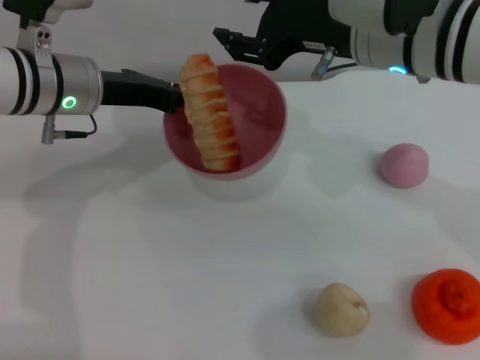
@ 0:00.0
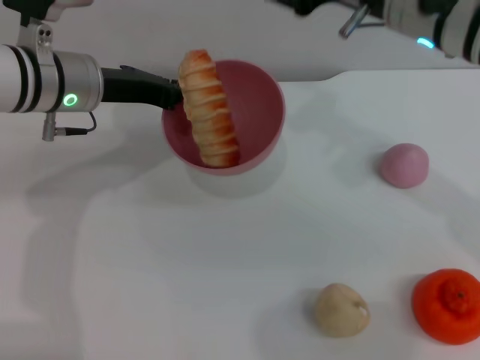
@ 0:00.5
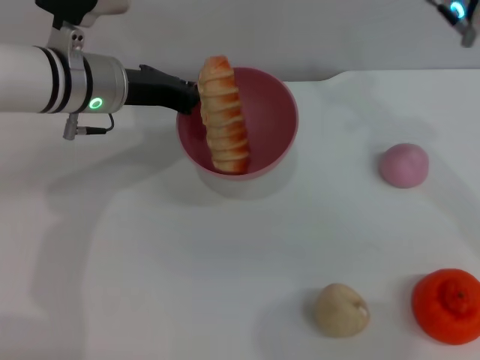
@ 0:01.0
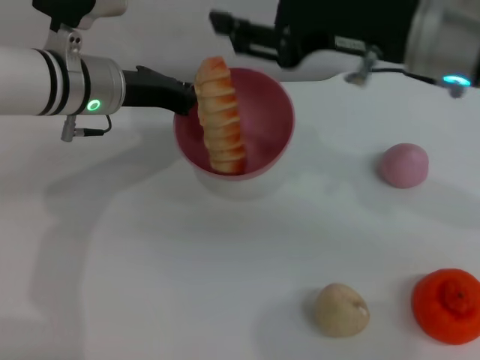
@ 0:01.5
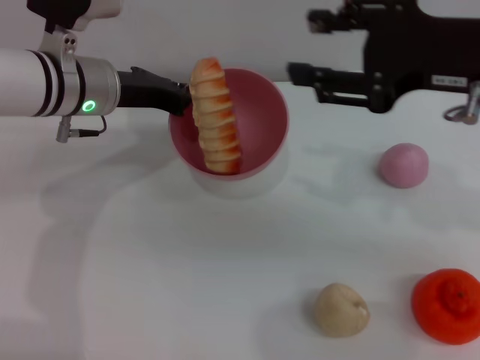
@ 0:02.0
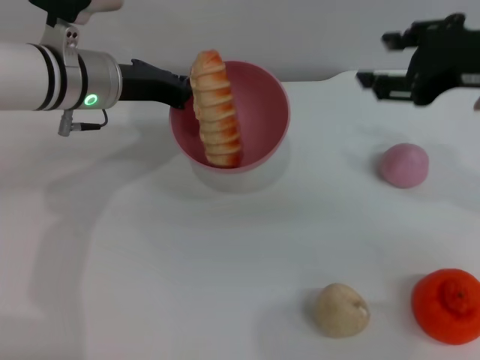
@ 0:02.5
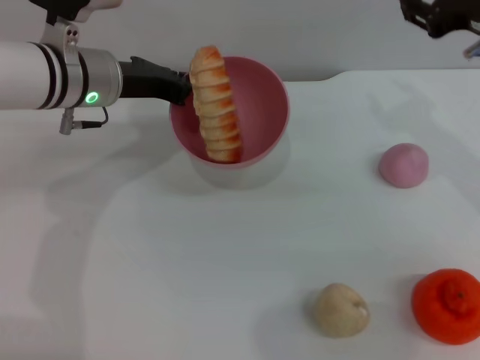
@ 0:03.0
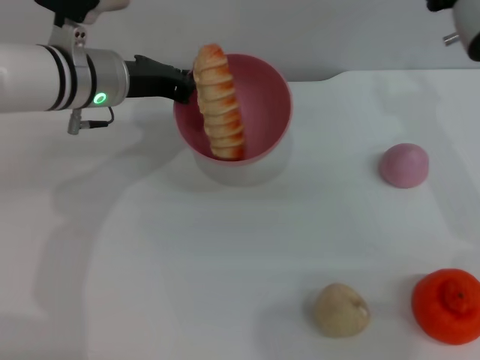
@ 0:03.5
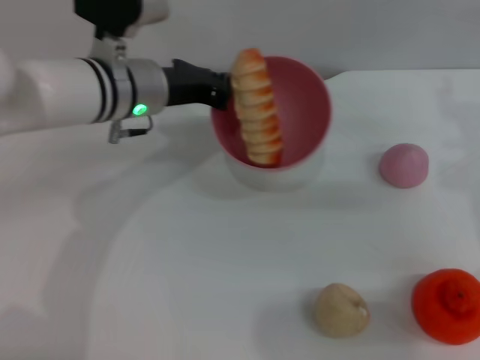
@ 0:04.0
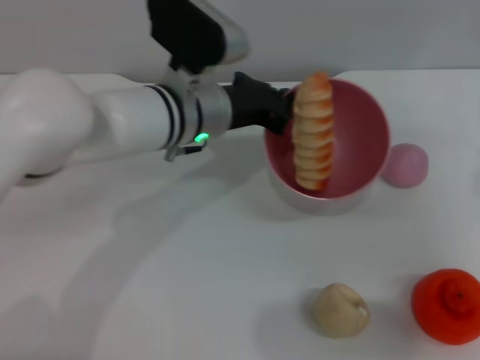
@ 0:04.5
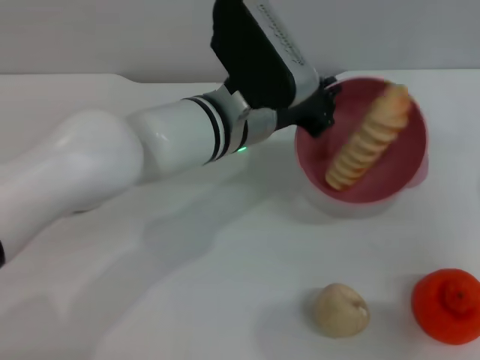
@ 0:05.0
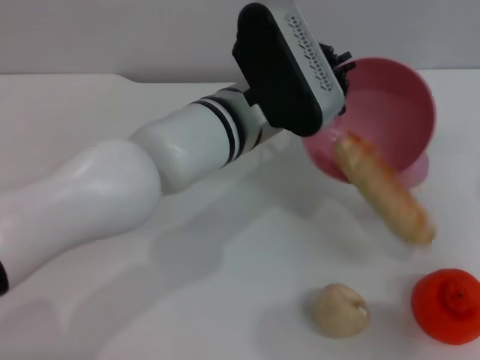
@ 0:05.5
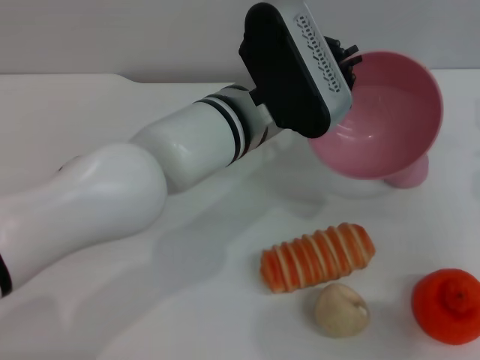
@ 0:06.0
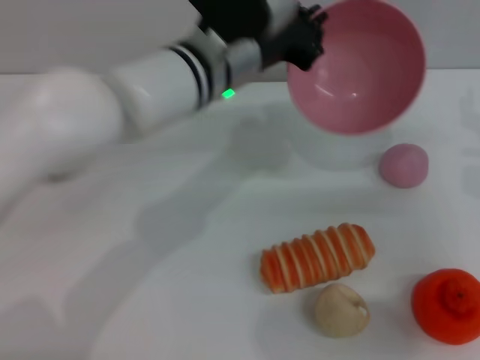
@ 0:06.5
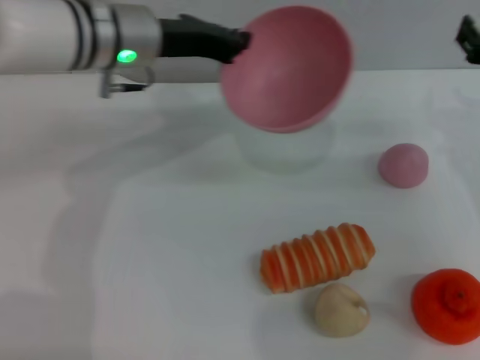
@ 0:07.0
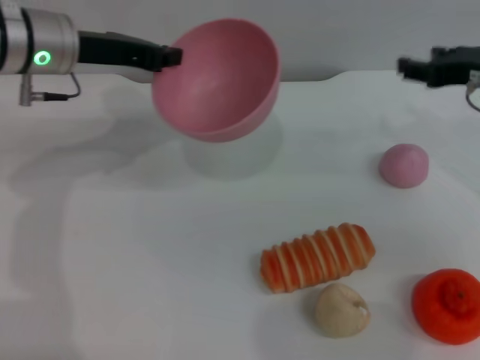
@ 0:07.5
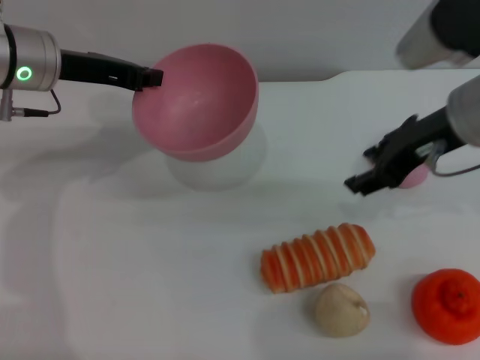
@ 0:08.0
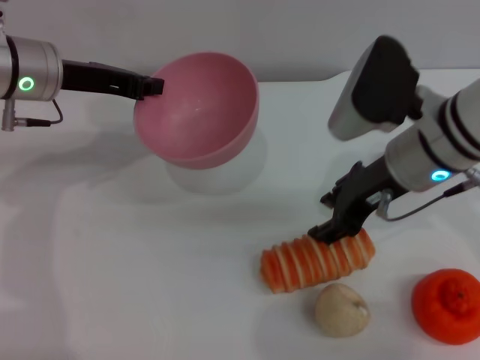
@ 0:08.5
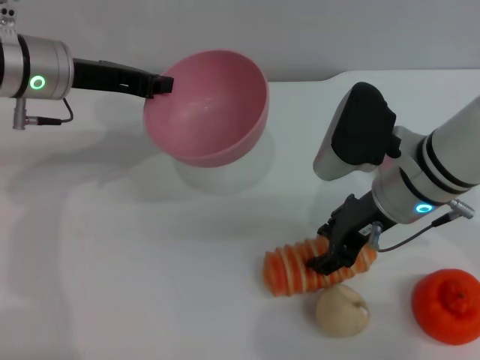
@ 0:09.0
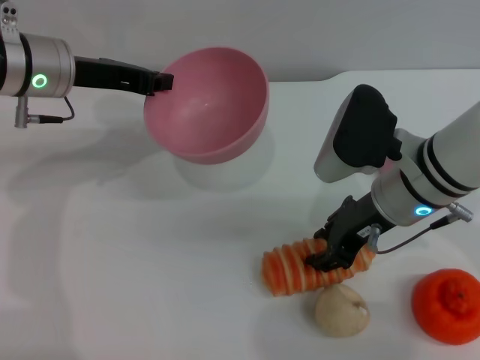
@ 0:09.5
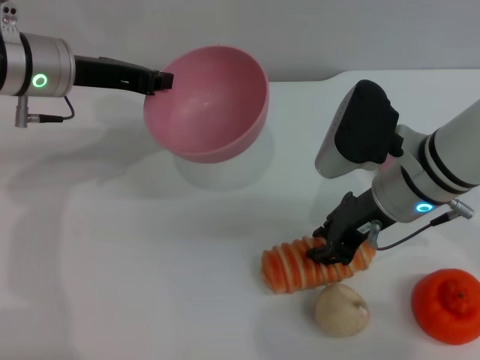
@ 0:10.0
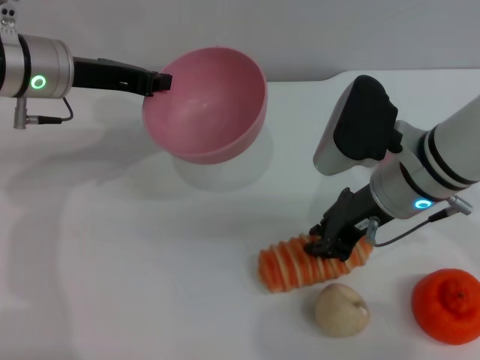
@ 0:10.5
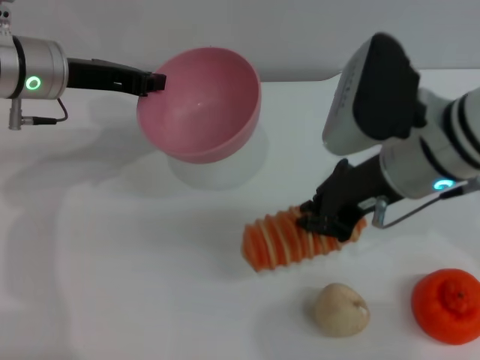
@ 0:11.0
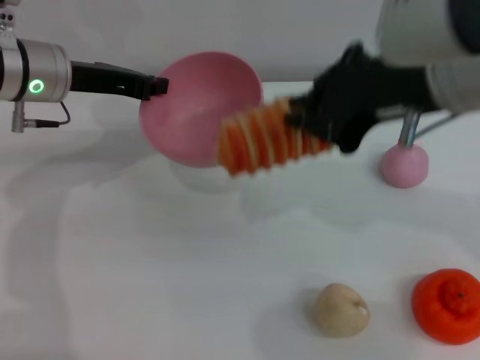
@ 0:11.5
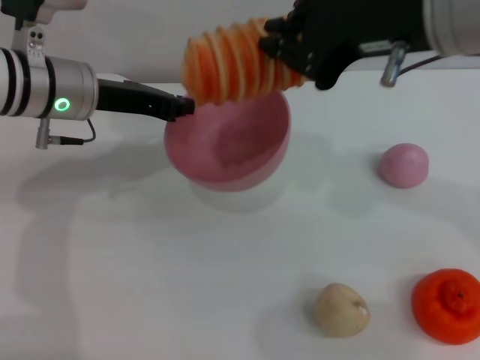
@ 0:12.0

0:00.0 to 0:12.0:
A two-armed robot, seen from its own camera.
Task of the whole recording: put the bread into the pink bowl and pour it out repeatedly.
Step, 0:00.5 to 0:06.0: Pour the bread out of the bowl.
Step, 0:06.5 to 0:11.0: Pick up the bread with the right gripper.
0:00.0 to 0:02.0: The right gripper heads to the right and backward, covering roughly 10 cm.
0:02.0 to 0:04.0: The right gripper shifts some 10 cm downward and to the right.
0:04.0 to 0:06.0: The left gripper moves to the right and backward, some 15 cm.
0:06.0 to 0:08.0: The right gripper is displaced to the left and upward by about 10 cm. Meanwhile the left gripper shifts about 20 cm to the left.
0:08.0 to 0:10.0: The right gripper heads downward, covering about 10 cm, and closes its fingers.
0:10.0 to 0:12.0: The right gripper travels upward by some 20 cm, and closes up.

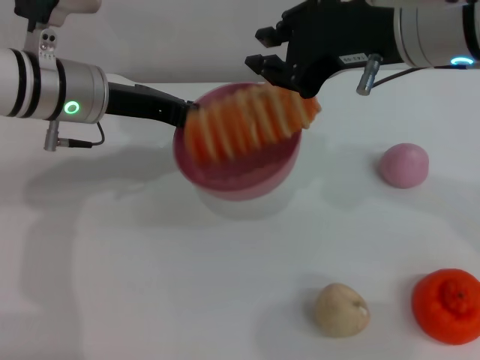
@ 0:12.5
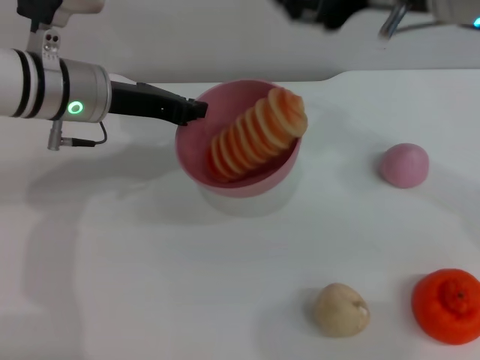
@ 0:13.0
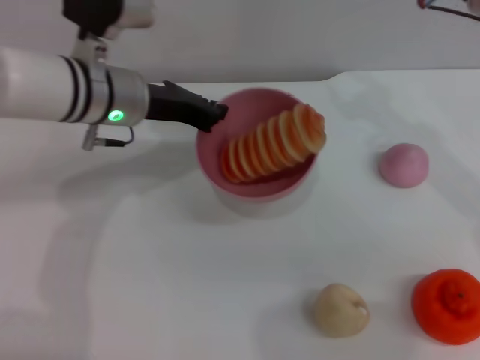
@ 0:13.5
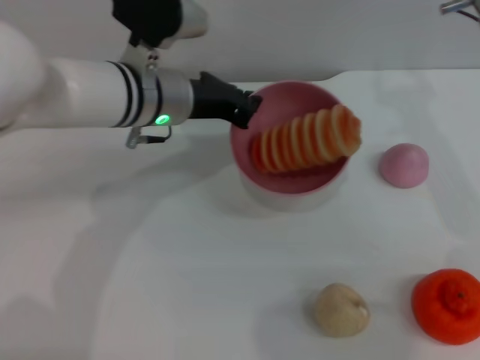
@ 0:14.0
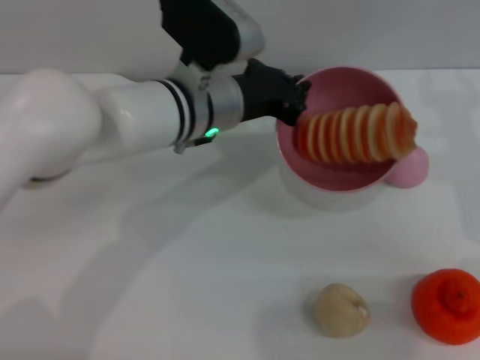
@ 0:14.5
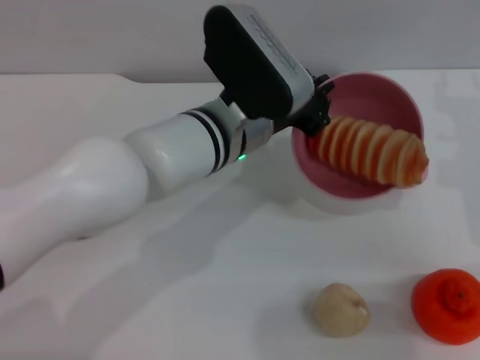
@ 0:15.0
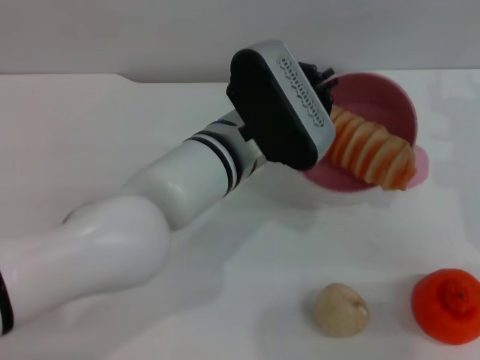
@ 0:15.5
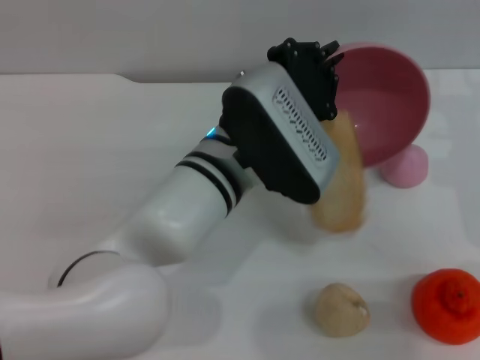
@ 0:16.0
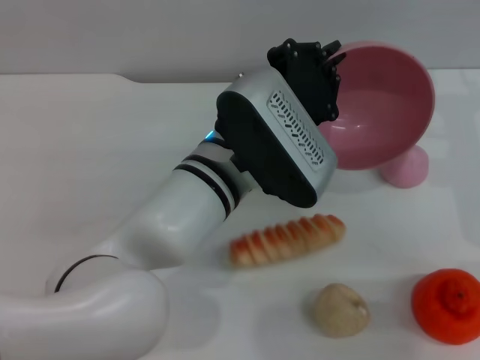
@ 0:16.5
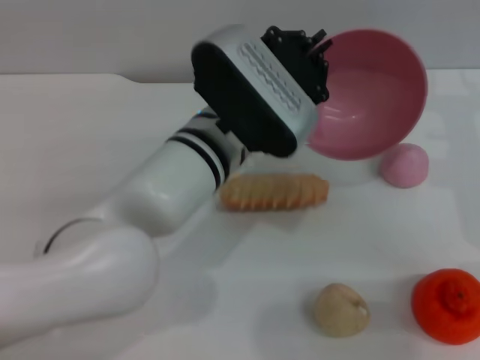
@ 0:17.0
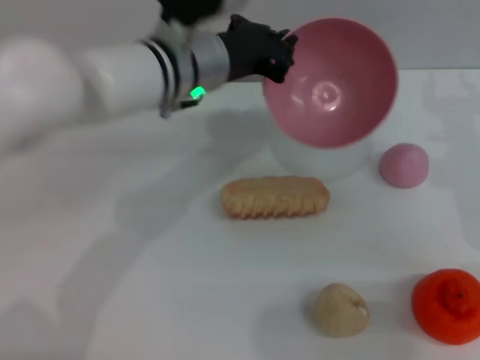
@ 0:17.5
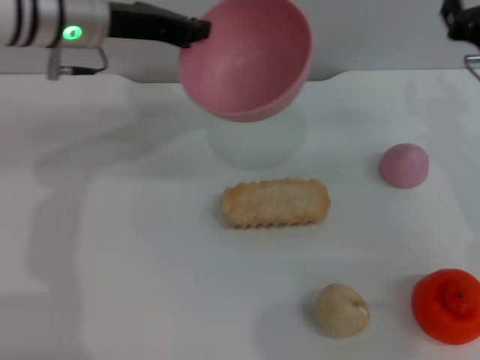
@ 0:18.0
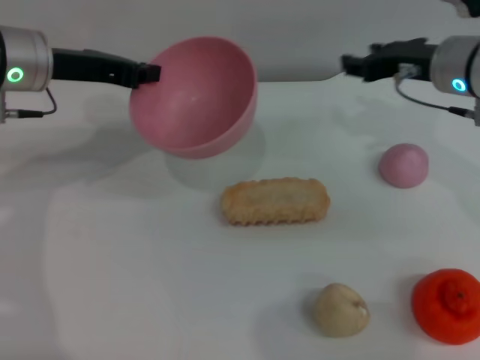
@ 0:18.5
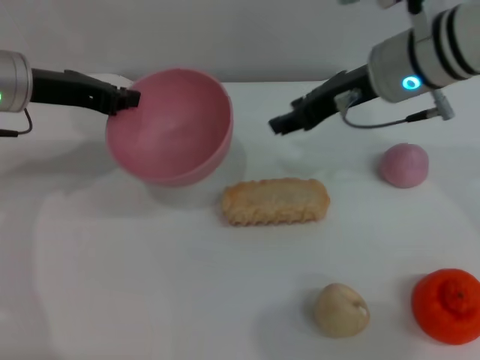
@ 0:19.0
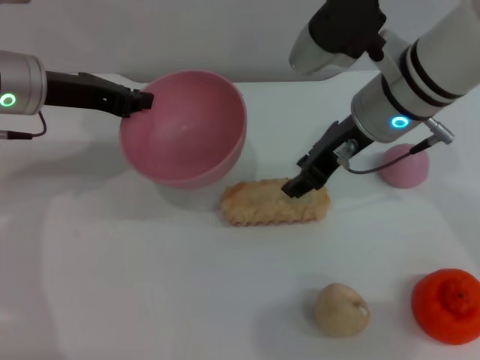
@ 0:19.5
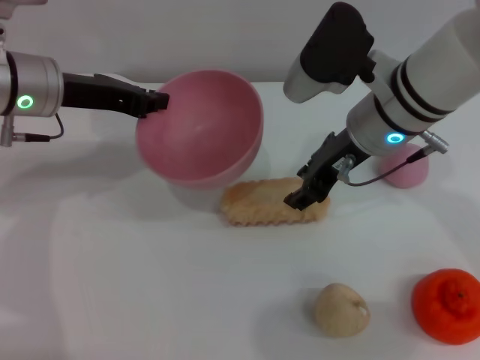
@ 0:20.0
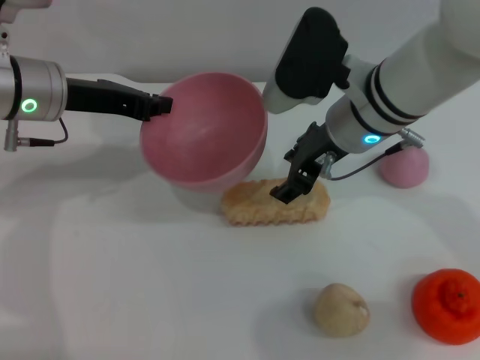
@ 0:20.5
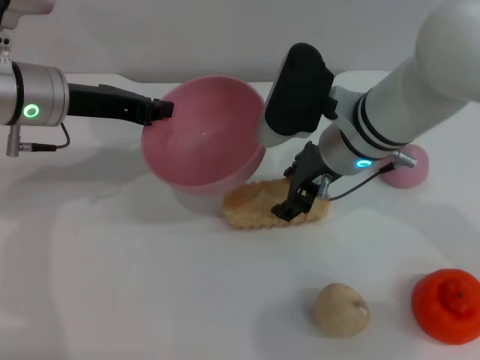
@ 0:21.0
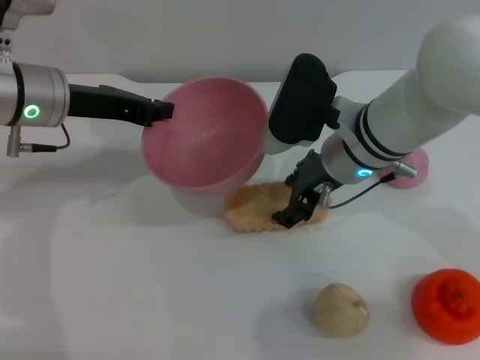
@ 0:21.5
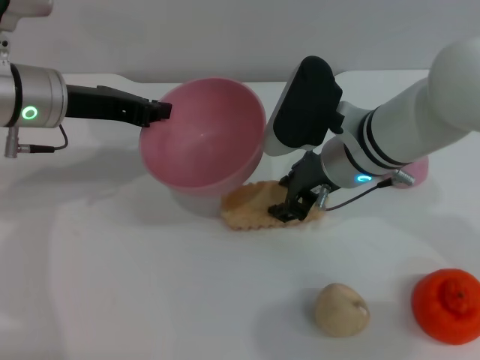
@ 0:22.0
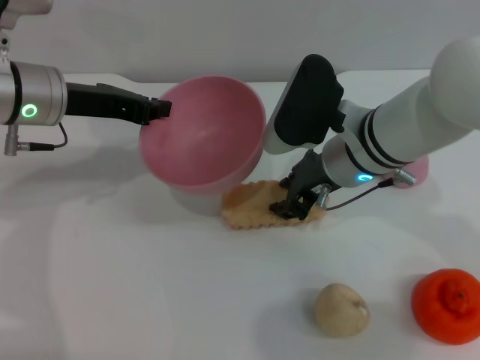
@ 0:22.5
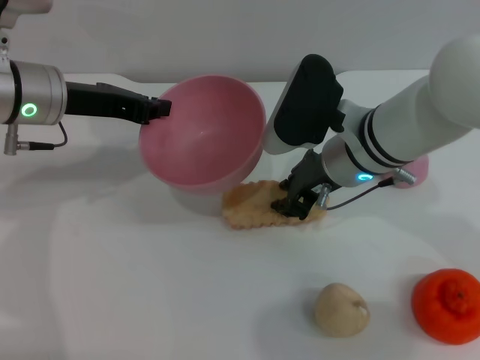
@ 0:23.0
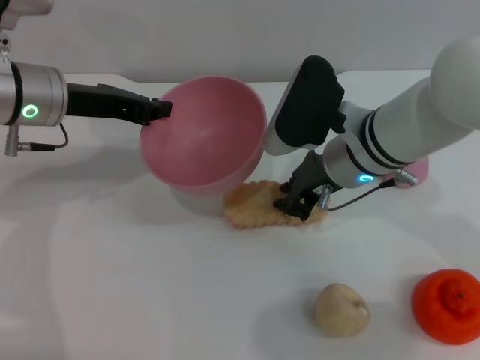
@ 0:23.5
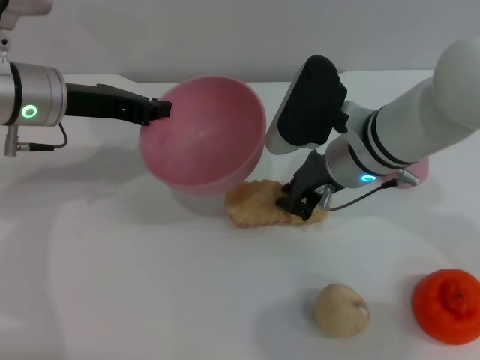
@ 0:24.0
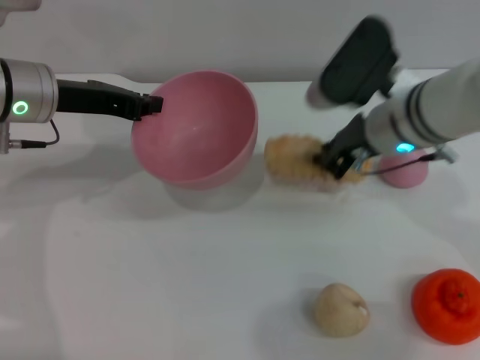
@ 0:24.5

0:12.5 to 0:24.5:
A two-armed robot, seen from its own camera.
Task of the whole recording: put the bread into the pink bowl and pour it out repeatedly.
Step, 0:13.5 to 0:17.0: Pour the bread out of the bowl.
0:12.5 to 0:14.5: The right gripper heads to the right and downward, covering some 15 cm, and opens, while the left gripper moves to the right, approximately 15 cm.
0:14.5 to 0:16.5: The left gripper shifts approximately 5 cm backward.
0:16.5 to 0:18.5: The right gripper shifts about 5 cm forward. Meanwhile the left gripper moves to the left and forward, some 25 cm.
0:18.5 to 0:20.5: The right gripper moves to the left, some 10 cm.
0:20.5 to 0:22.5: There are only small adjustments of the grippers.
0:22.5 to 0:24.5: The right gripper closes.

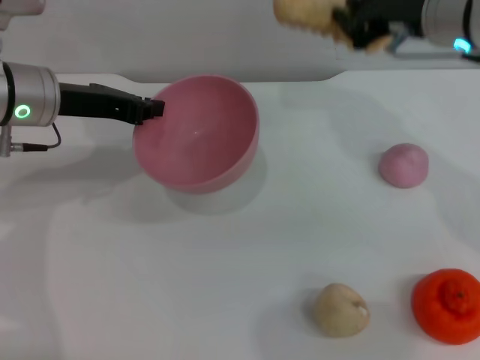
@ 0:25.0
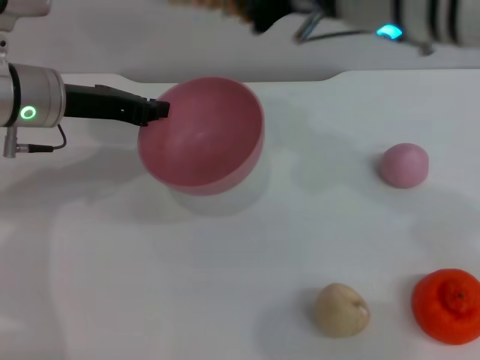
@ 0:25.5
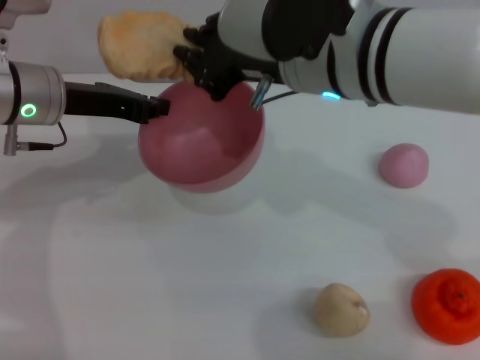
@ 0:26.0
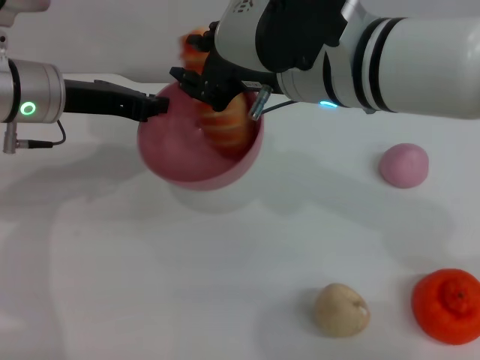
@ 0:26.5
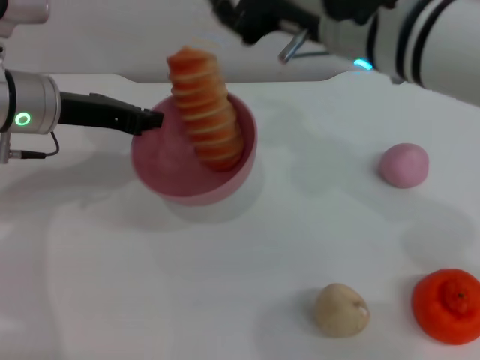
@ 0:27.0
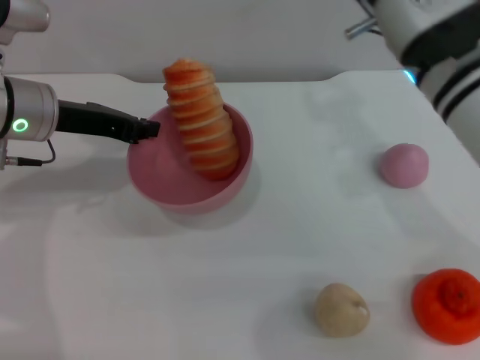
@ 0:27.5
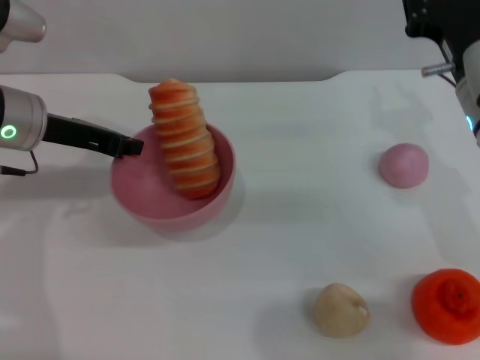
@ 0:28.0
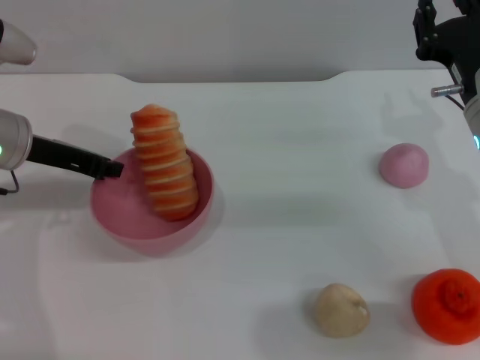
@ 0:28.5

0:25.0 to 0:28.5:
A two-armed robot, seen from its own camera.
Task of the whole recording: put the bread into the pink bowl and pour it out repeatedly.
Step, 0:25.0 to 0:27.5: Place the bread into the bowl.
0:25.0 to 0:27.0: The right gripper shifts approximately 5 cm to the left, and opens its fingers.
0:27.0 to 0:28.5: The right gripper is displaced to the right and downward by approximately 15 cm.
